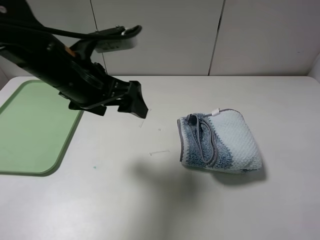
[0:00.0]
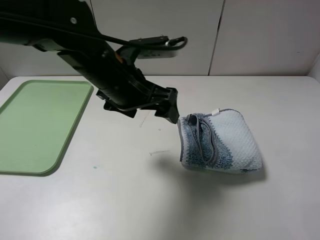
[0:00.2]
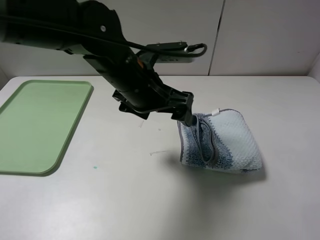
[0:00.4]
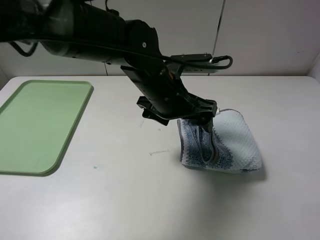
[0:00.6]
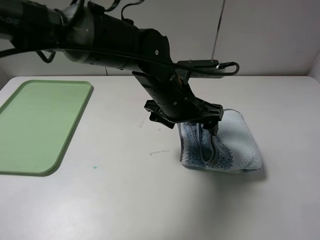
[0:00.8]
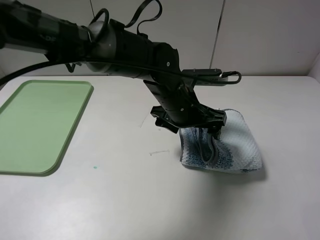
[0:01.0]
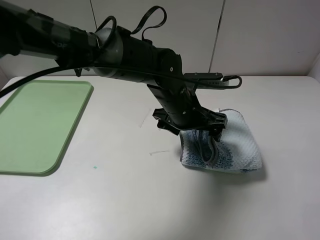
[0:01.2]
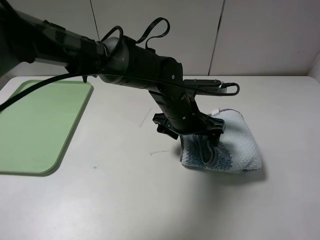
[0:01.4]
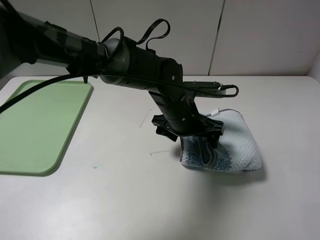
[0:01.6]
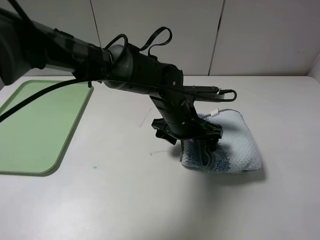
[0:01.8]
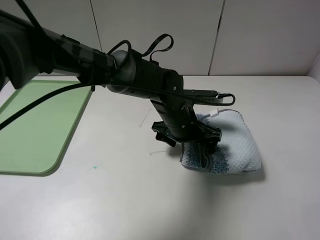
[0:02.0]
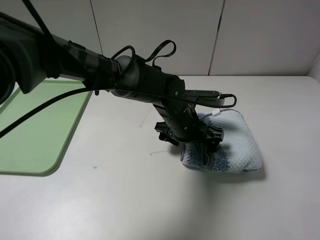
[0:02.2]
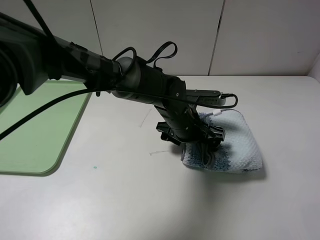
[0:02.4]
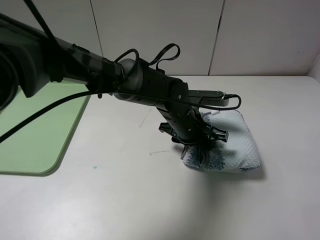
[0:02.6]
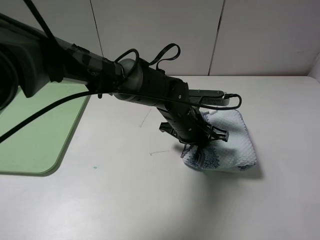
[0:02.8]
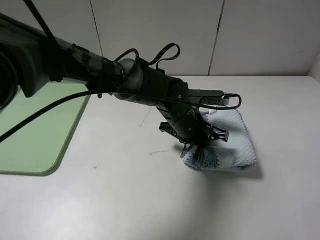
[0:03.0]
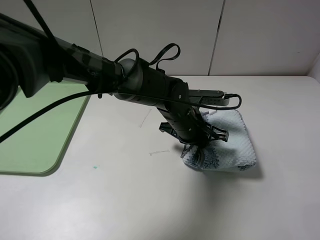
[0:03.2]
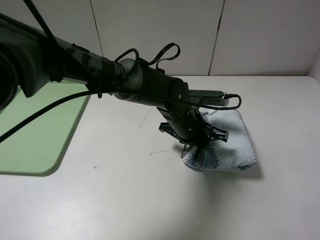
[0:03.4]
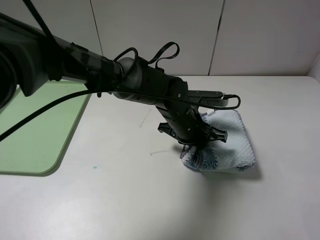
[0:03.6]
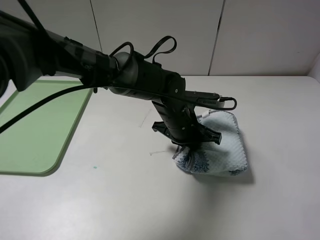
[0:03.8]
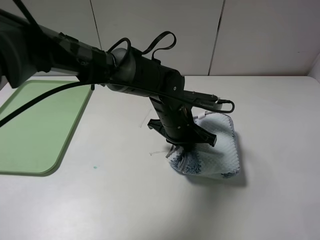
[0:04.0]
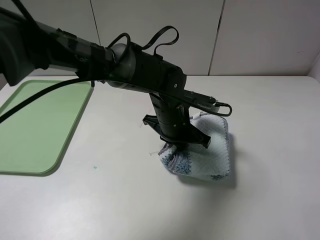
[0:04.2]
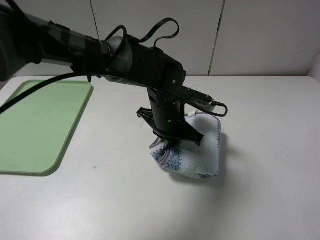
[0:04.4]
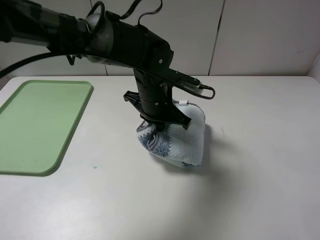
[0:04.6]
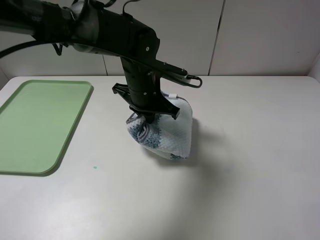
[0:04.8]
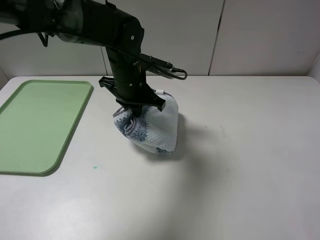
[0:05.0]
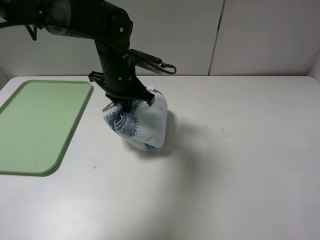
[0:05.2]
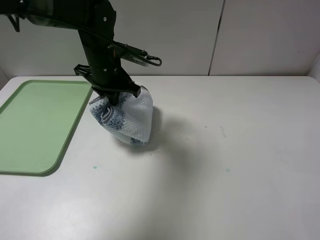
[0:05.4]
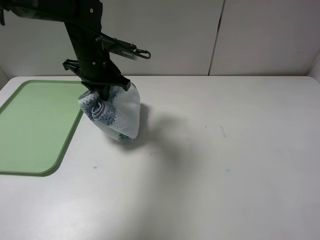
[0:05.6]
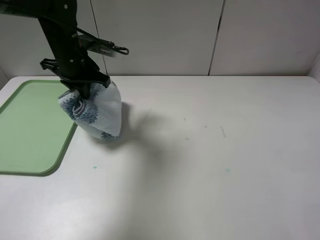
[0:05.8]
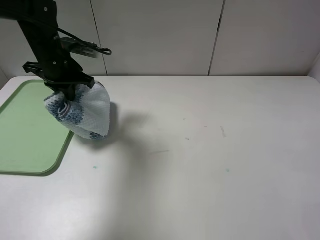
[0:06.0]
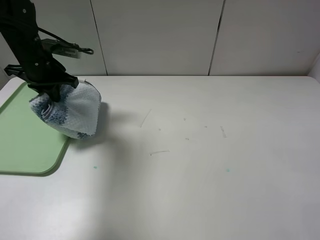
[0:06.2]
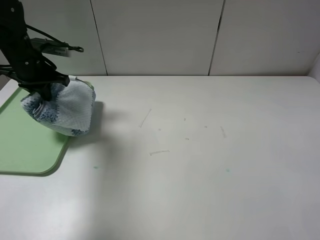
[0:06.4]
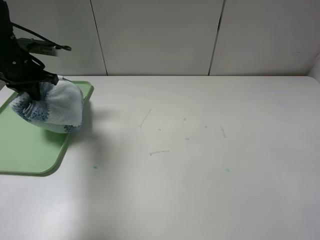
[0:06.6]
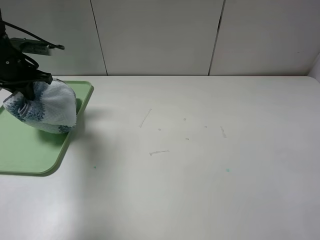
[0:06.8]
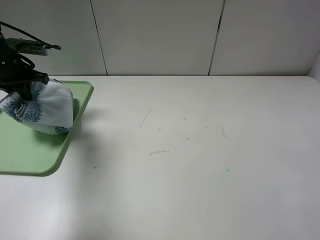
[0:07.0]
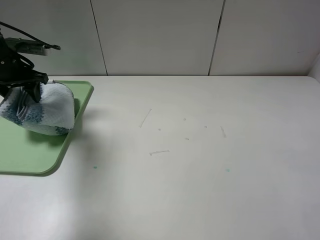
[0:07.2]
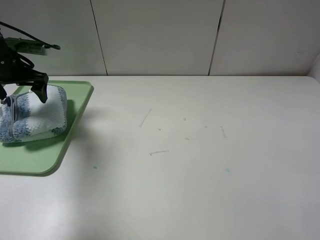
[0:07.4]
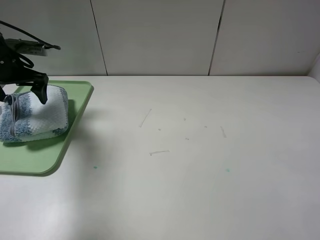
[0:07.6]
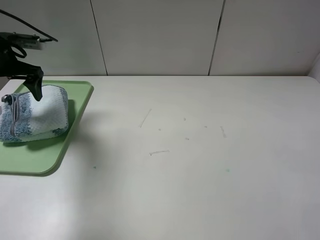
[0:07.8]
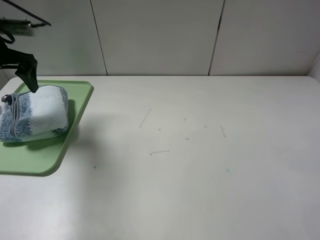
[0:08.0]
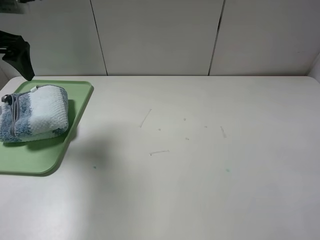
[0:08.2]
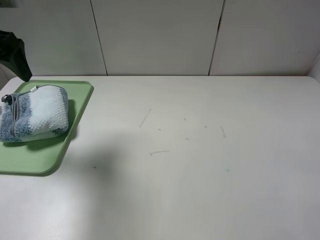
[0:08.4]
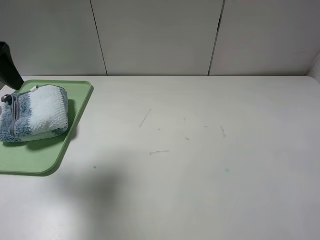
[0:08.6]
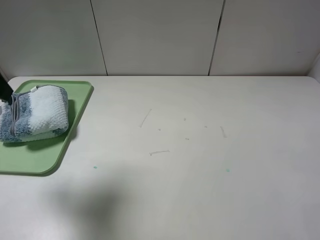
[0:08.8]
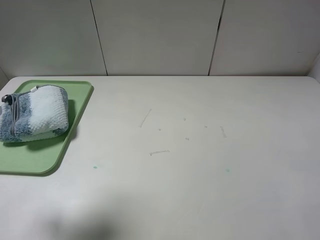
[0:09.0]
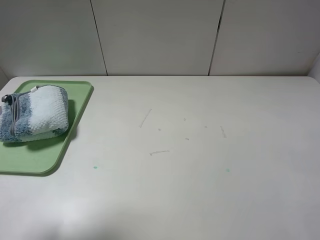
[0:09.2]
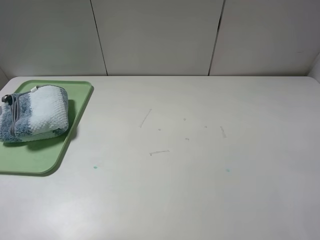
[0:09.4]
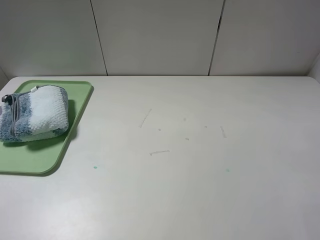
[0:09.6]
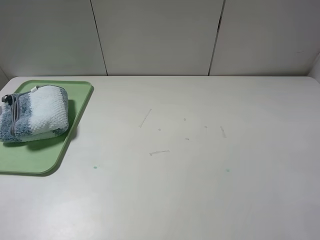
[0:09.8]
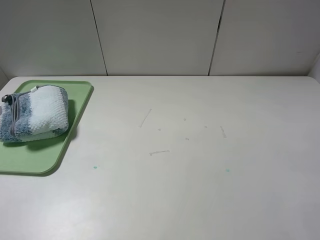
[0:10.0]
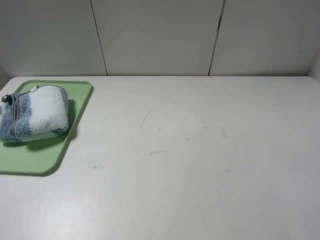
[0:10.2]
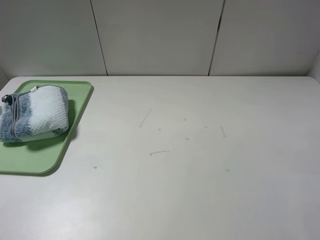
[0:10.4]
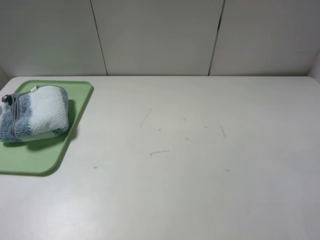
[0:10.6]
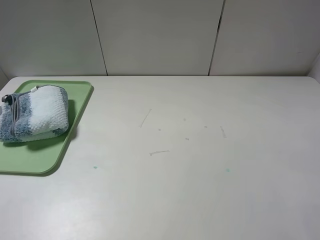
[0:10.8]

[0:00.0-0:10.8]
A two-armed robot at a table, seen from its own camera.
Step, 0:00.0 to 0:03.2: Grasp the blue white towel with the left gripper.
0:00.0 to 0:01.6: The left gripper shifts about 20 cm to the right and downward.
0:01.6 to 0:03.0: The left gripper closes.
0:03.0 to 0:04.6: The left gripper goes some 10 cm to the left and upward.
0:04.6 to 0:06.2: The left gripper travels to the left by roughly 25 cm.
0:06.2 to 0:07.8: The left gripper heads to the left, covering about 5 cm, and opens up.
0:07.8 to 0:09.2: The left gripper moves backward, roughly 25 cm.
0:09.2 to 0:10.8: The left gripper shifts roughly 15 cm backward and downward.
